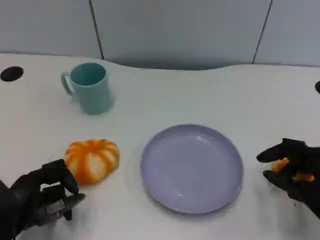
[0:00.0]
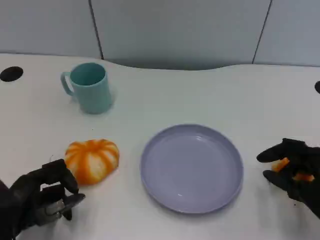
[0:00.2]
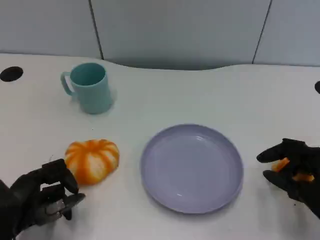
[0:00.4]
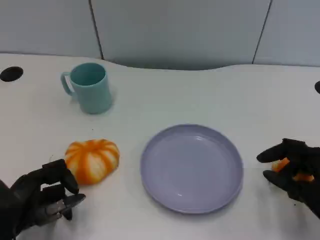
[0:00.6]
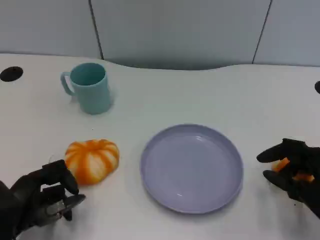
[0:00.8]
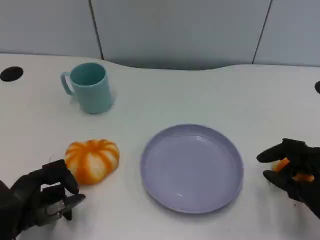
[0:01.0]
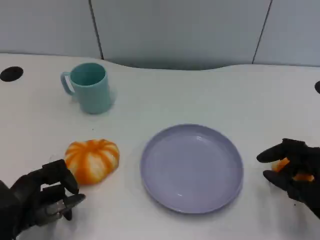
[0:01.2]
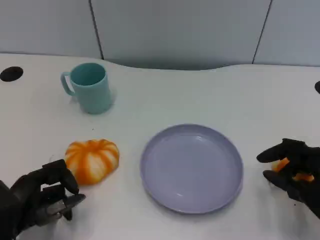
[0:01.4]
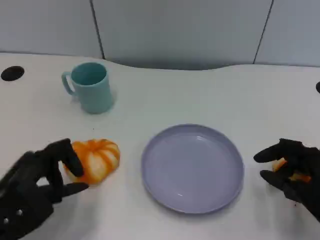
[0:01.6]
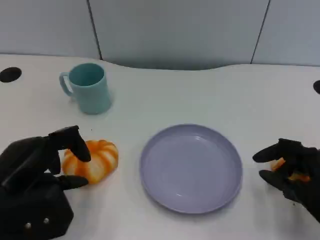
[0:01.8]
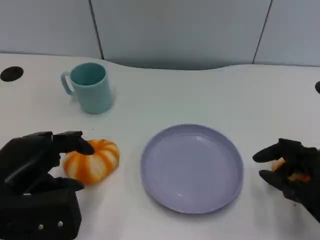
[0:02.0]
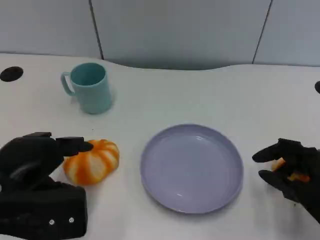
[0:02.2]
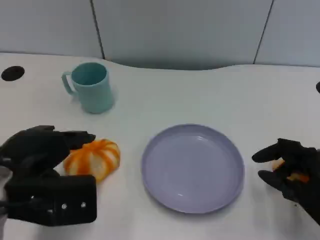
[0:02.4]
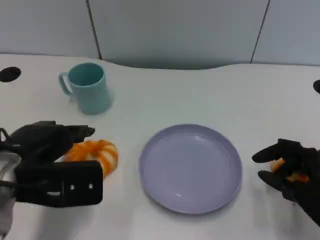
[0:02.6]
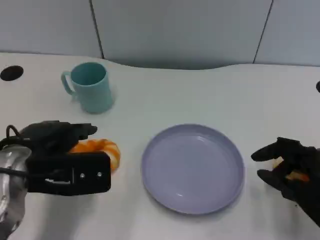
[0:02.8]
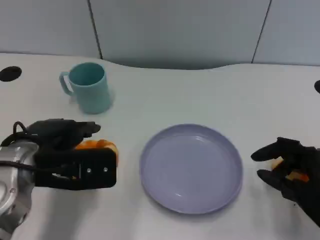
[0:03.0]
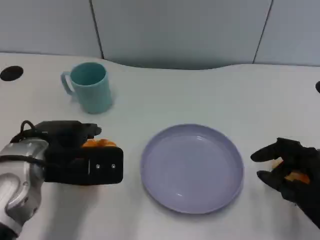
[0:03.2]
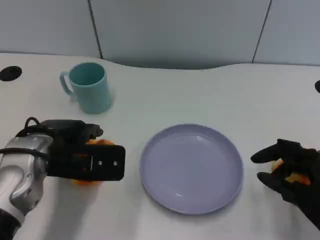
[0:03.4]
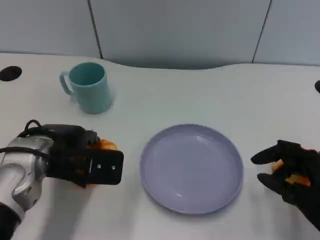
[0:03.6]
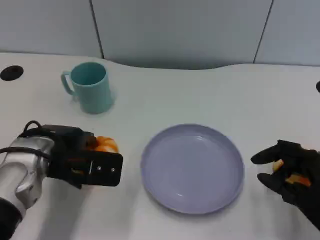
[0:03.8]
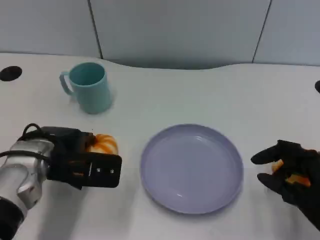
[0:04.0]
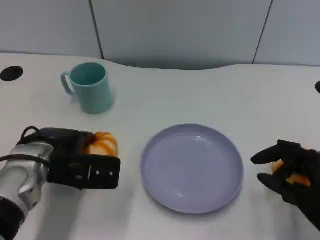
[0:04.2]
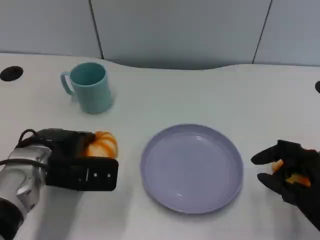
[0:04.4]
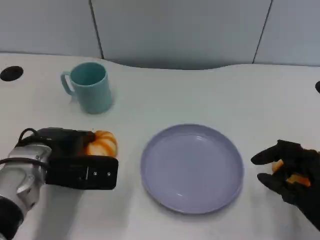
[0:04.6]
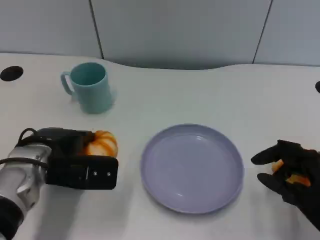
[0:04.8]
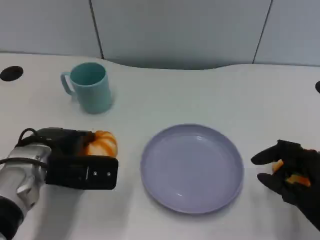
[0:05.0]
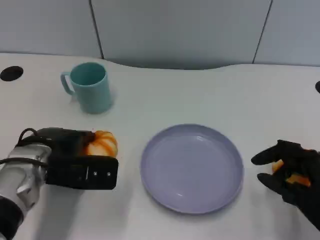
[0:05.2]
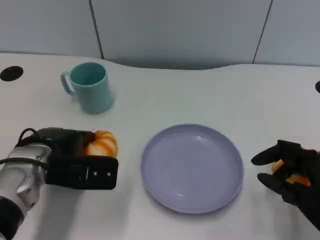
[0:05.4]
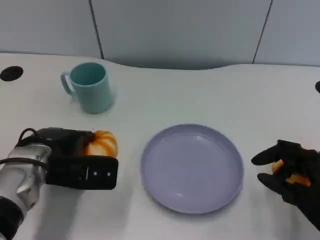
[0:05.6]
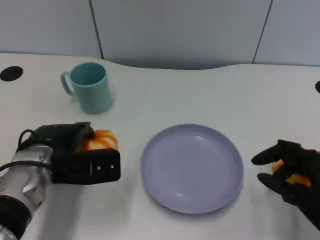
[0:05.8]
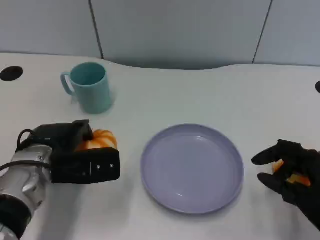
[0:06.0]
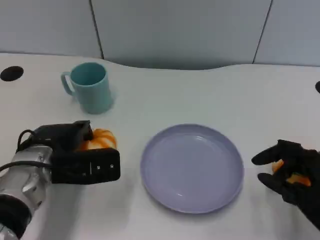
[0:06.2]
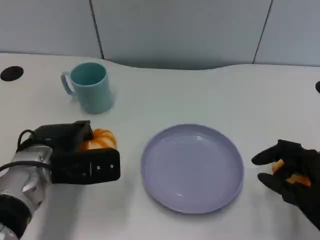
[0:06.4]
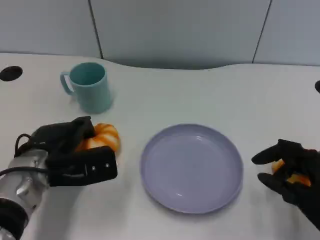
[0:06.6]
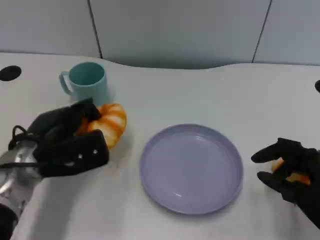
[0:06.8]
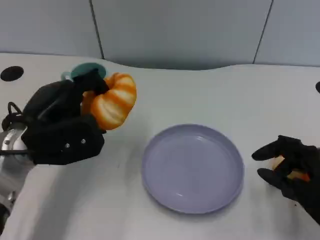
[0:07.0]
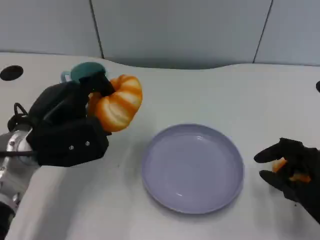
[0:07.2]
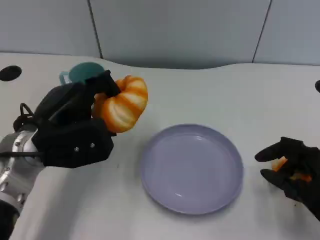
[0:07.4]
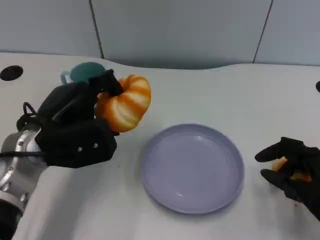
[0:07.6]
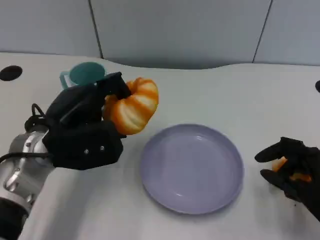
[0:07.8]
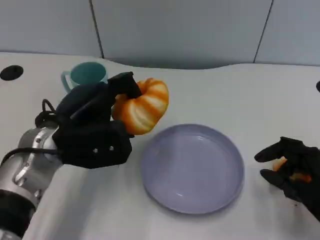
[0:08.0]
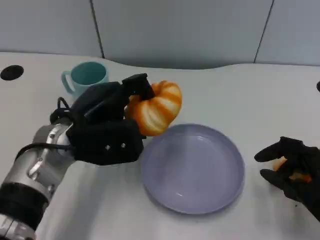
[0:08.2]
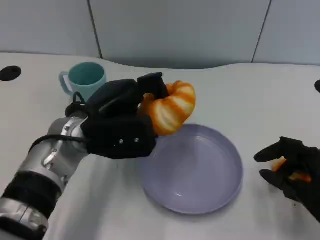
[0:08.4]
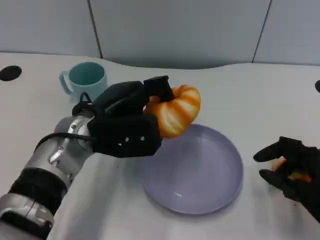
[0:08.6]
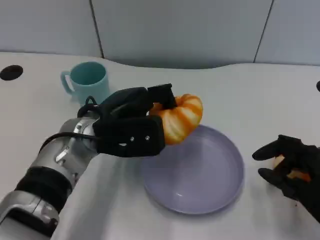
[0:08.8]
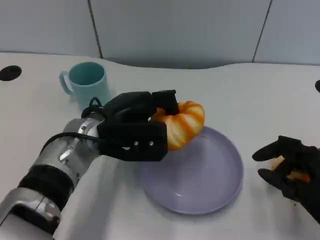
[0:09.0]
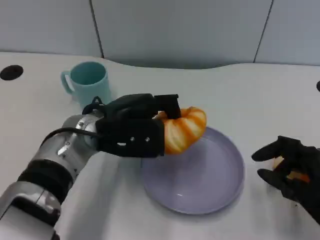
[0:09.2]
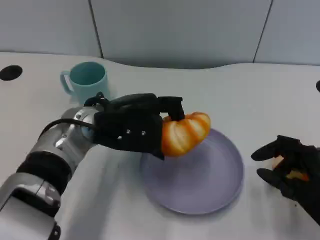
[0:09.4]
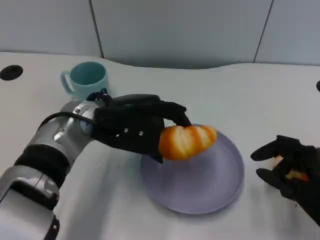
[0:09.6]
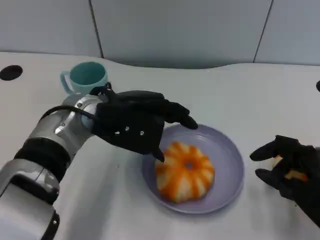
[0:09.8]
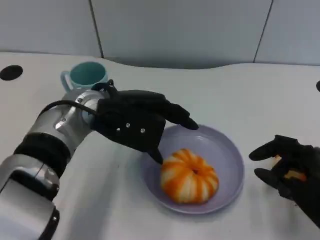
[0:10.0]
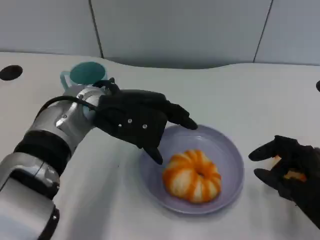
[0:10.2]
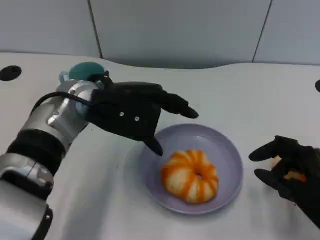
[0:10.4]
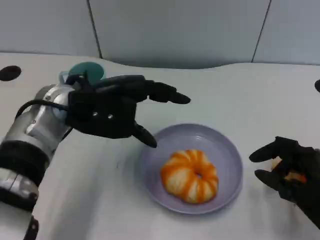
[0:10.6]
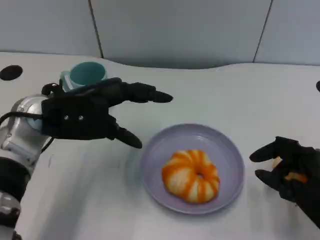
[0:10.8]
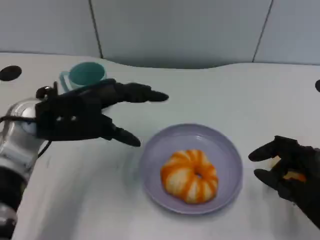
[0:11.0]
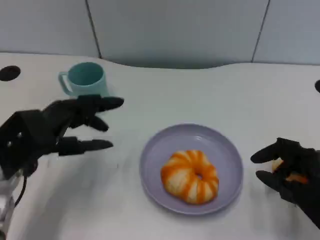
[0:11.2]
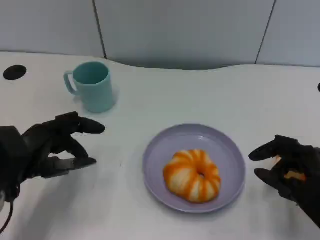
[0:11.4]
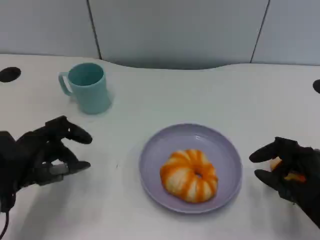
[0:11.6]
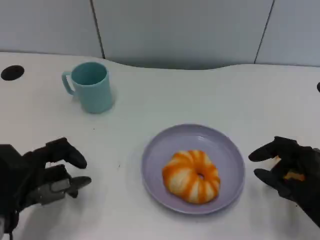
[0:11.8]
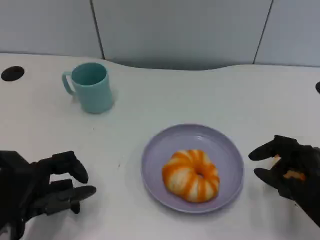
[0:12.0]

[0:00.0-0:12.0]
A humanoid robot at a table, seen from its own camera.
Task of the whole recording: Grasp the bread from the table and place it into the plate.
0:00.0 to 0:01.6: The left hand is displaced upward by roughly 5 cm.
0:01.6 to 0:03.0: The left hand moves forward and to the right, approximately 10 cm.
0:03.0 to 0:04.4: The left hand moves downward, some 5 cm.
0:04.4 to 0:06.0: The hands make only small movements.
0:06.0 to 0:07.6: The left hand shifts some 5 cm upward.
0:07.6 to 0:09.0: The left hand moves to the right, approximately 5 cm.
0:09.0 to 0:10.4: The left hand moves upward, about 5 cm.
0:10.4 to 0:12.0: The left hand heads backward, to the left and downward, covering some 20 cm.

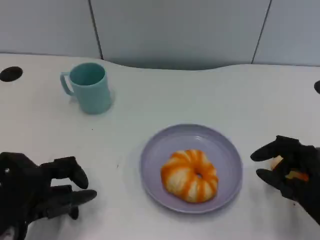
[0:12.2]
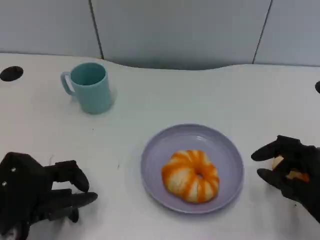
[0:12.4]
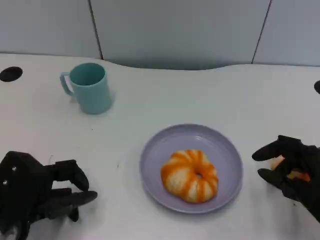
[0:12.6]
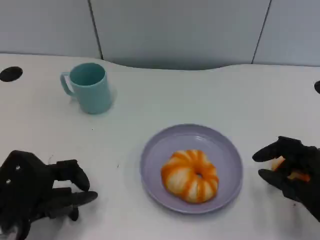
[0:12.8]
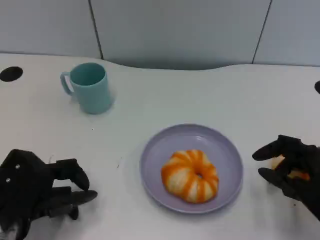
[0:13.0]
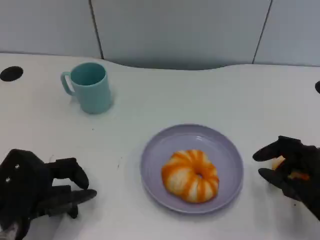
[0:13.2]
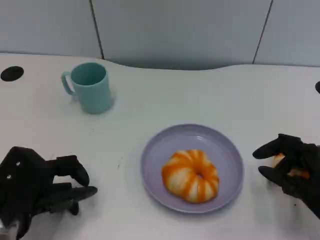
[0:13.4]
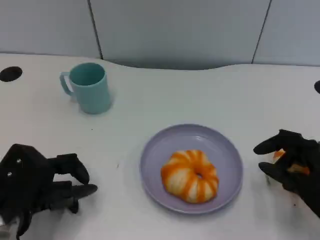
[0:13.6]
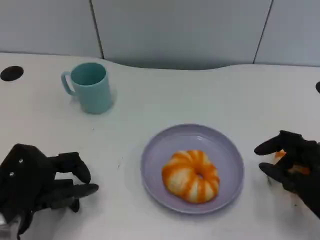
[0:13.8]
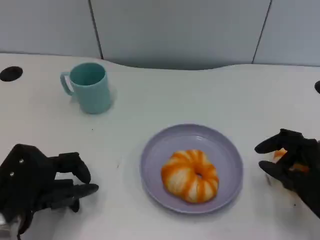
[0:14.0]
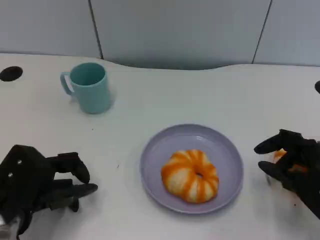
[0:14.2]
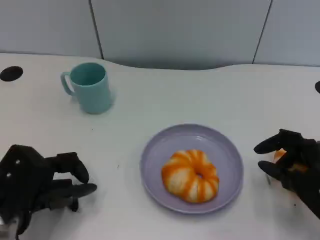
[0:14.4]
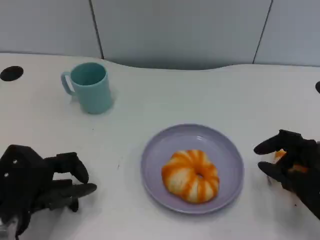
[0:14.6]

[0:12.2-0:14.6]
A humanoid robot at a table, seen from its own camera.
Task of the whole recording: Grasp the bread from the table and place it into the plate.
0:12.2 to 0:13.4: The hands stay close to where they were, moving slightly.
0:13.4 to 0:14.6: Both hands stay put.

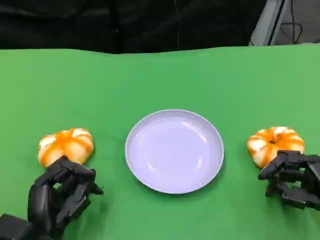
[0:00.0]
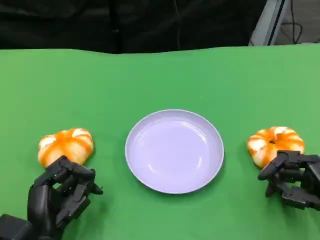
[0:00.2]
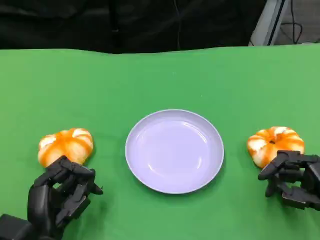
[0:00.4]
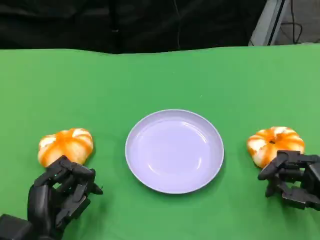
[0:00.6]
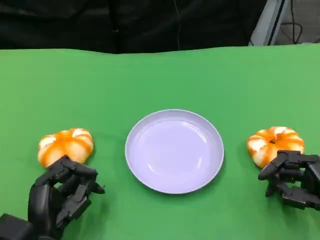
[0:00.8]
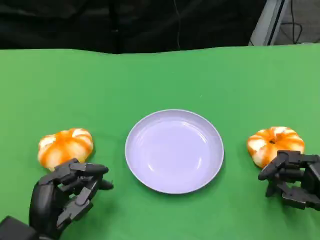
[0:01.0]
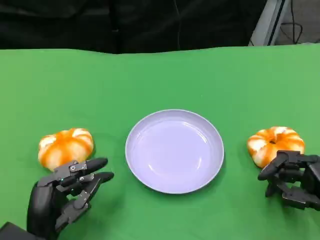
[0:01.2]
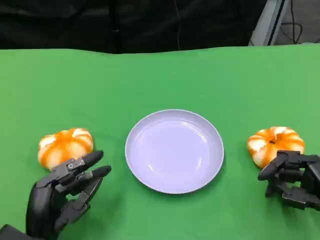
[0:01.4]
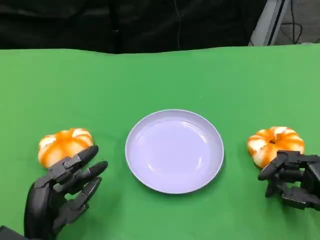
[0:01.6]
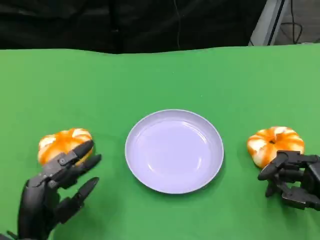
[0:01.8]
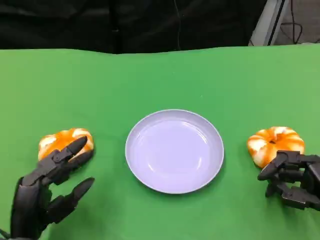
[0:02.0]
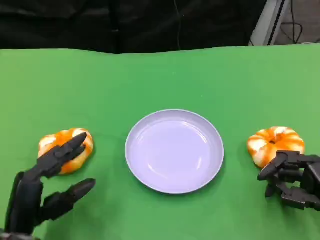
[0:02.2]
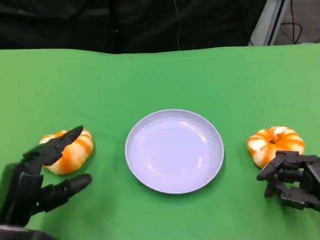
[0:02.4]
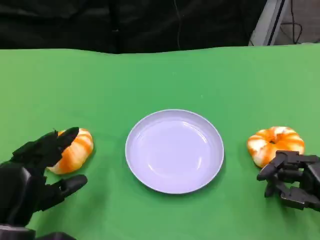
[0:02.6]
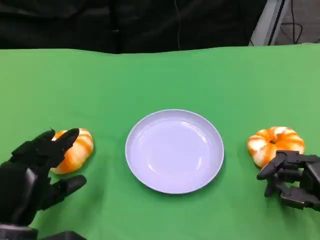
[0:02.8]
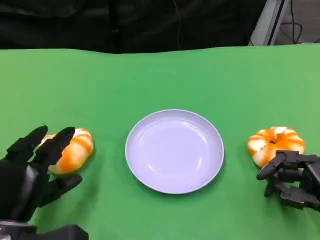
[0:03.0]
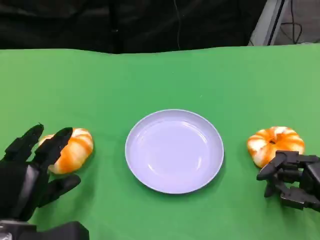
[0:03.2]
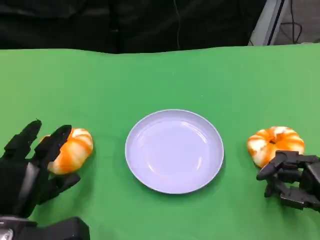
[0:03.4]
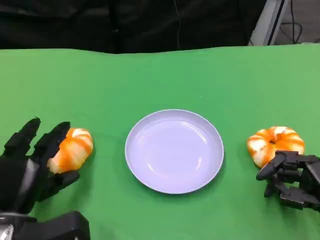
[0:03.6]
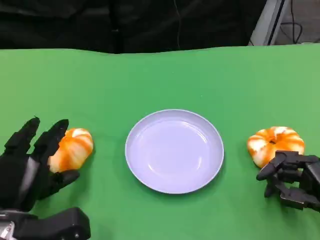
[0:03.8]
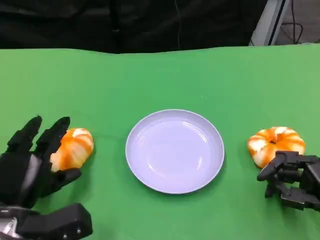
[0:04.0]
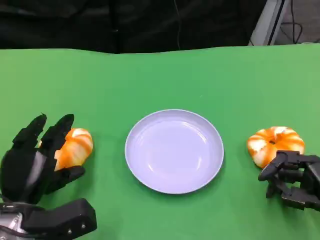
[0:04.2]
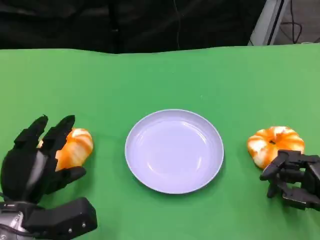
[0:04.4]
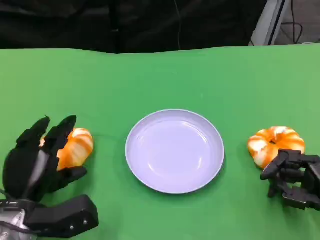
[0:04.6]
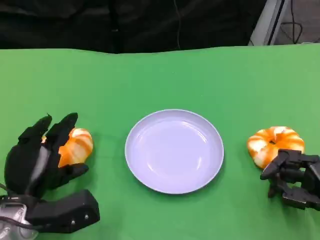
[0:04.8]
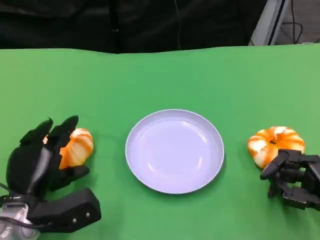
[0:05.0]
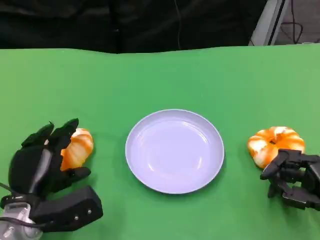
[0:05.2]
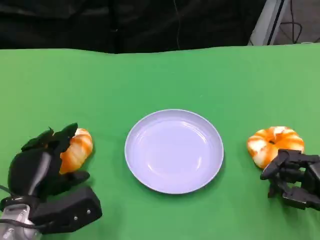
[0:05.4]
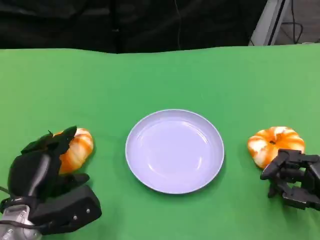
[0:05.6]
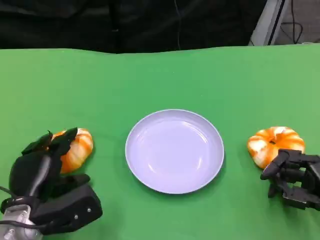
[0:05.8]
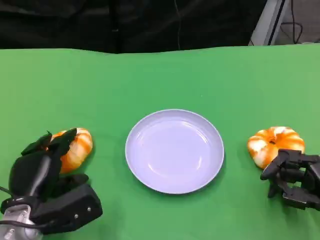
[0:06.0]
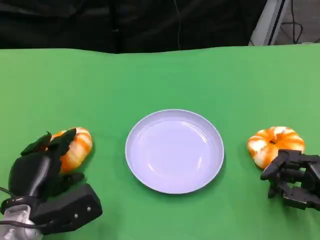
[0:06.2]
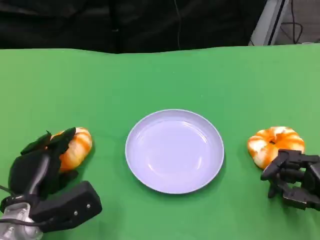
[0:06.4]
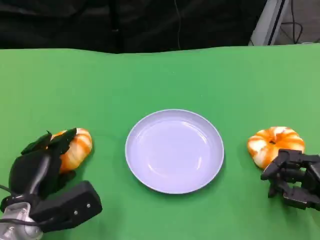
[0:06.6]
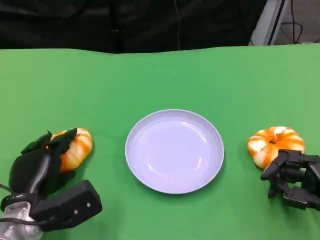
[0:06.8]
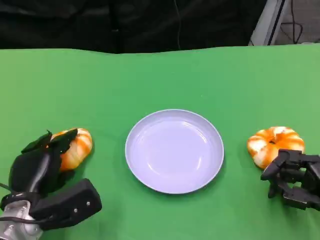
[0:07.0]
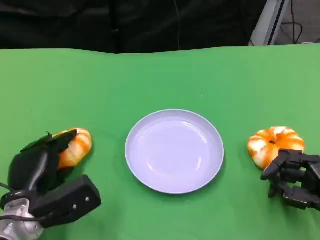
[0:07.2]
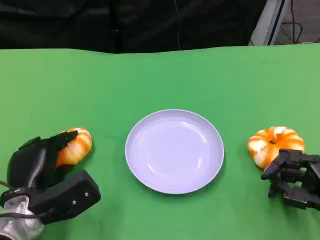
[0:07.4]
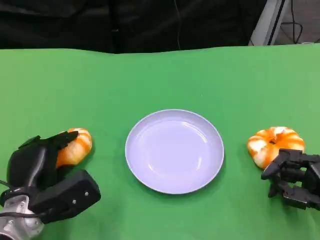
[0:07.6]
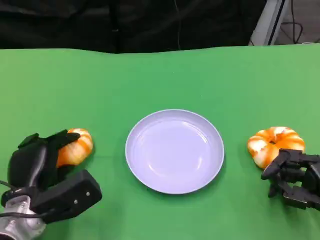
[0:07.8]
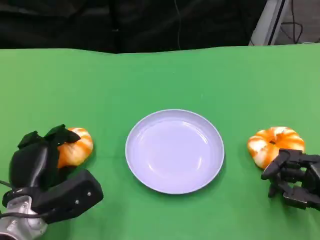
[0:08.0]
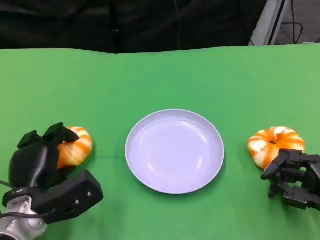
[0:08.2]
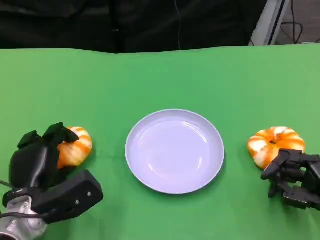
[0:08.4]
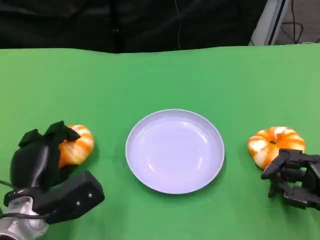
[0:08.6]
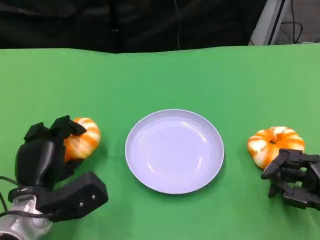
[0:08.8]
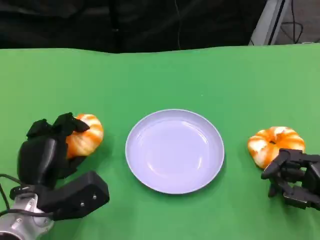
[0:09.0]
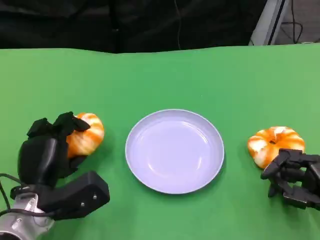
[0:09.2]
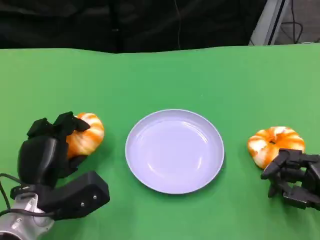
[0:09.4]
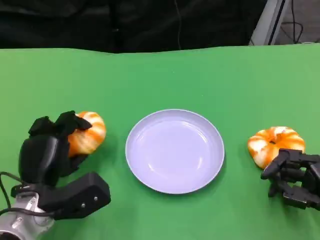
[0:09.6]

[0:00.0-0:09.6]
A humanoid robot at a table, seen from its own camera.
Task of the whole recording: Grasp the bread from the table and place it into the plate.
0:00.0 to 0:01.6: The hands move only a little.
0:03.2 to 0:04.8: The hands stay close to where they were, moving slightly.
0:04.8 to 0:09.6: The hands move only a little.
